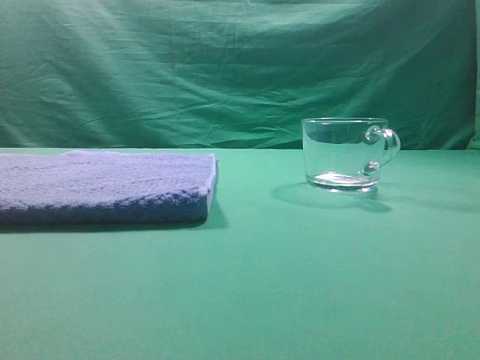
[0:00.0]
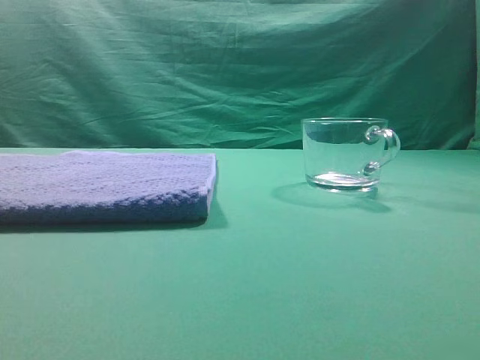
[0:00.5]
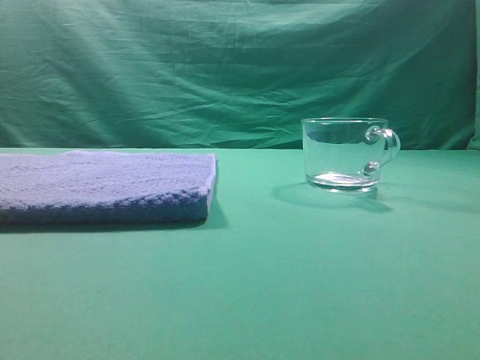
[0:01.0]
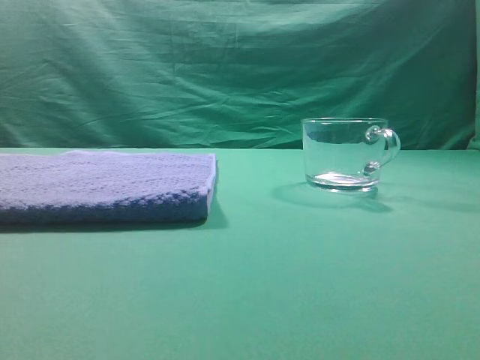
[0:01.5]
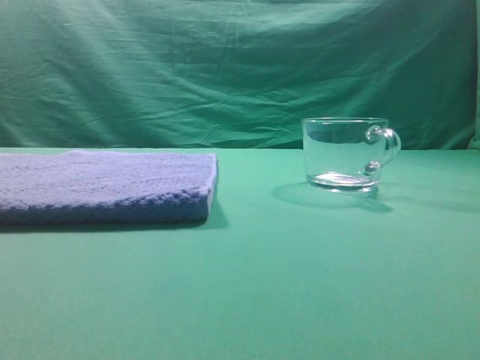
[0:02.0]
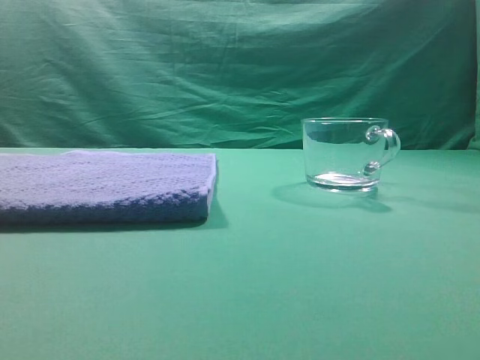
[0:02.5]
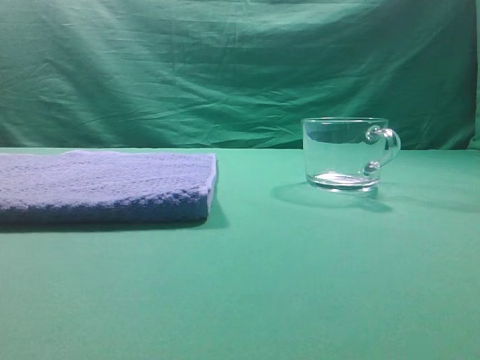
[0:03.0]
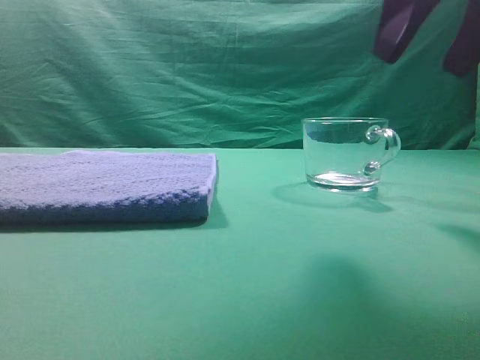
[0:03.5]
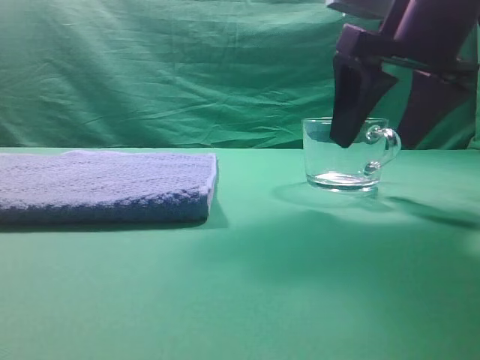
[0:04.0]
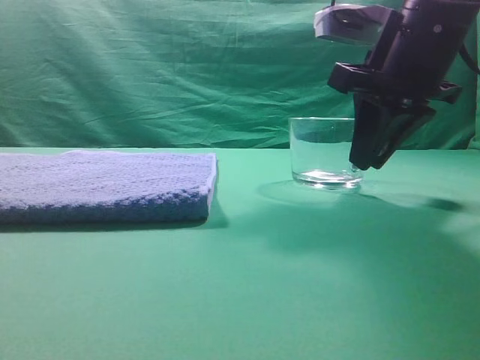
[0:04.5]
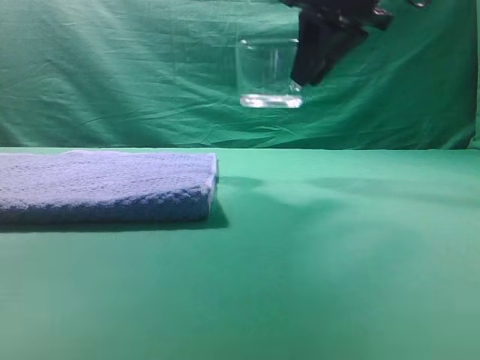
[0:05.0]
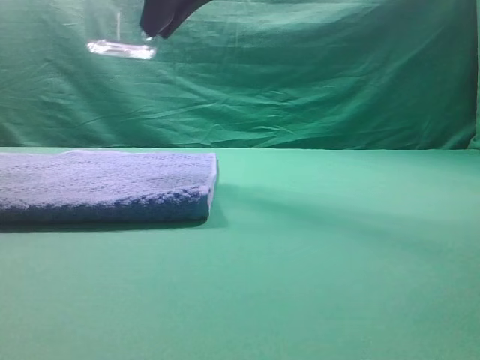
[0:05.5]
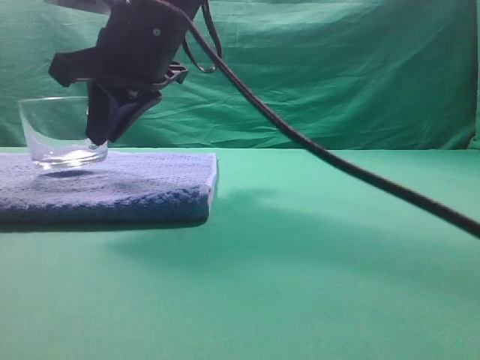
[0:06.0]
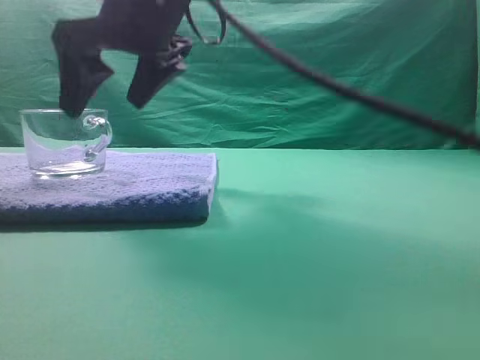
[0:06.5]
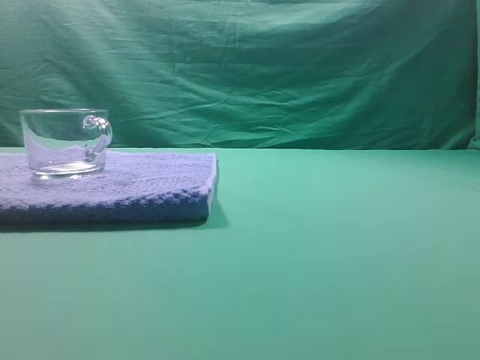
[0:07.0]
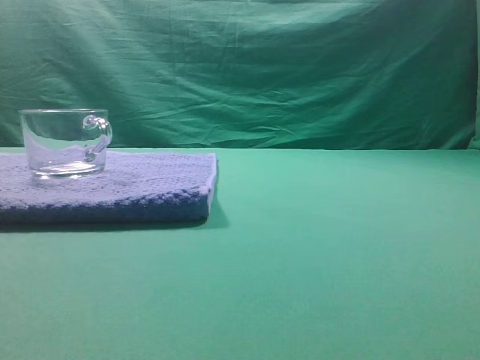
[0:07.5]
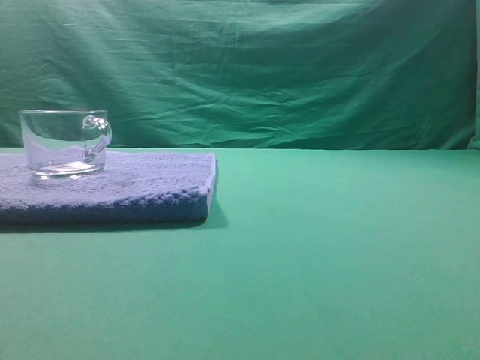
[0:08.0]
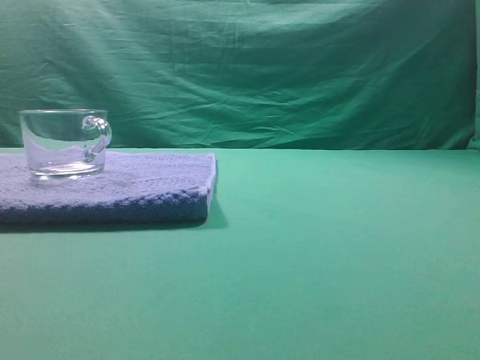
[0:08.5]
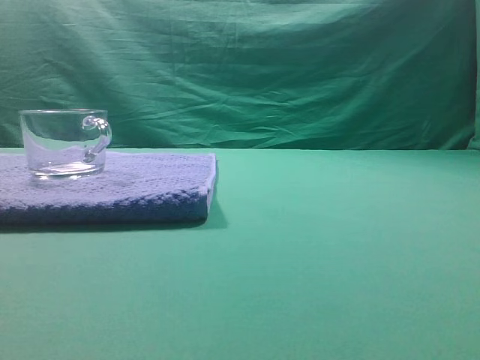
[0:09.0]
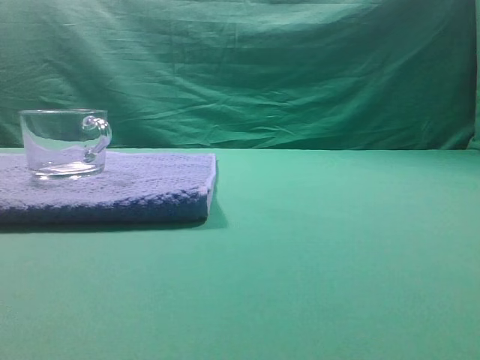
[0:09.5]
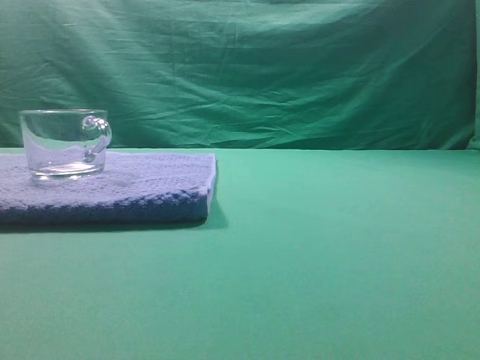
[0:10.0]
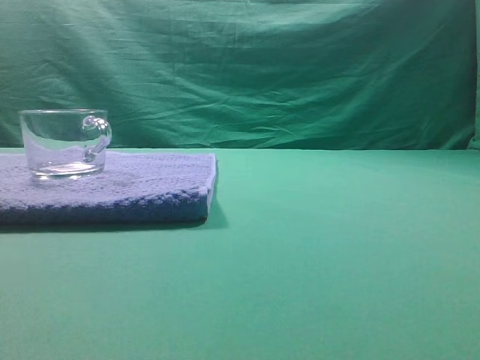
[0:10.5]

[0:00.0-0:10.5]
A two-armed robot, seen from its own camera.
Task of the whole recording: grasp the transparent glass cup and place it within the blue towel.
Step, 0:00.0 to 0:04.5: Grasp the transparent glass cup.
Step, 0:05.0 to 0:06.5: Place the glass cup on the blue zone.

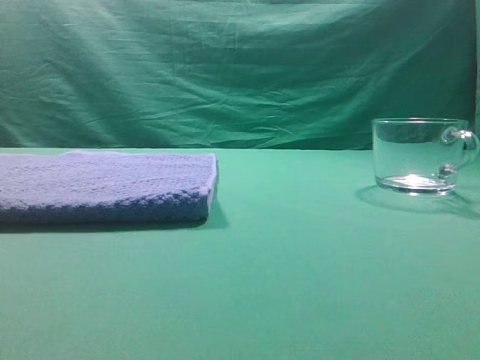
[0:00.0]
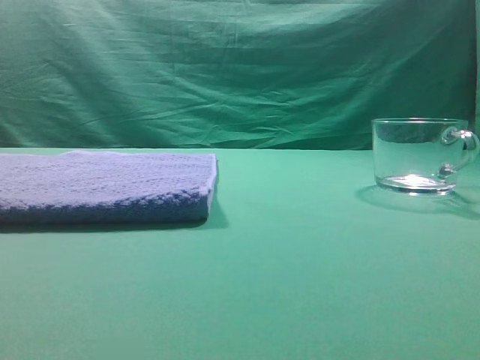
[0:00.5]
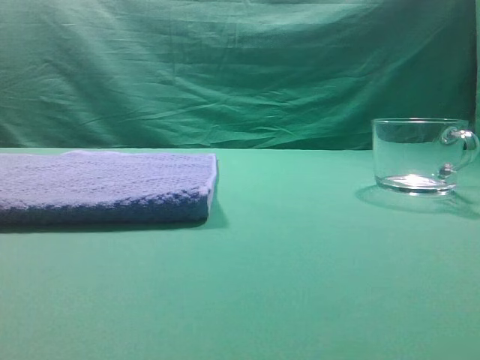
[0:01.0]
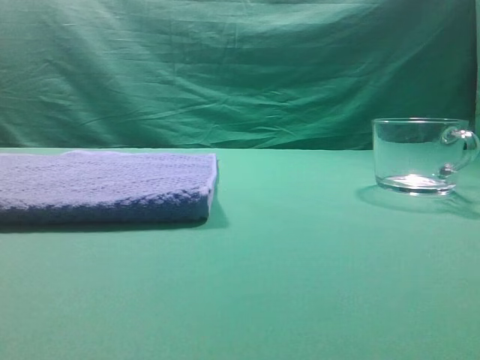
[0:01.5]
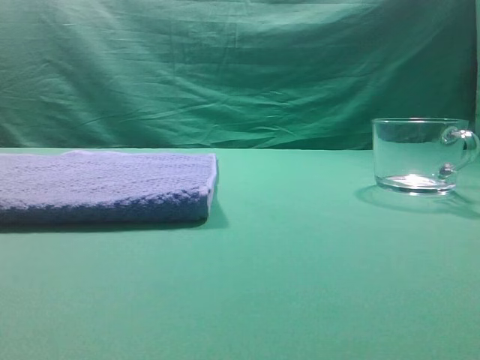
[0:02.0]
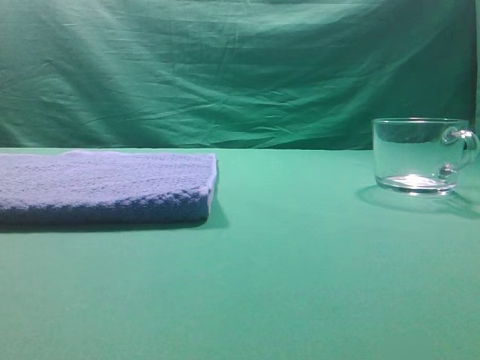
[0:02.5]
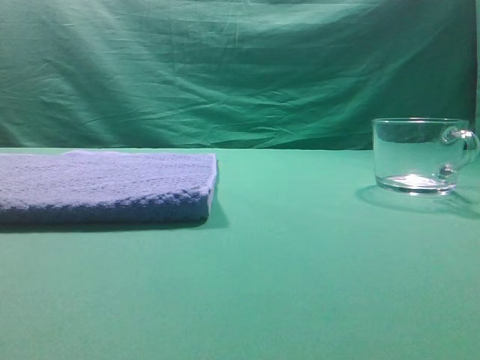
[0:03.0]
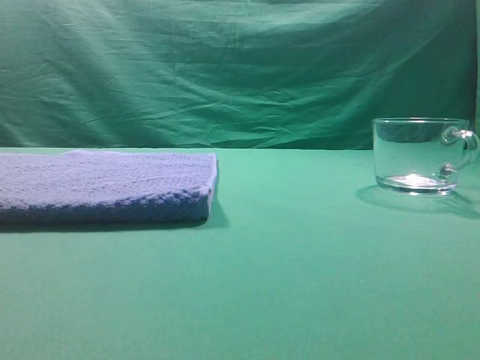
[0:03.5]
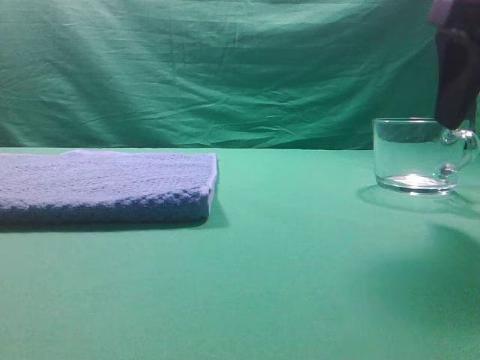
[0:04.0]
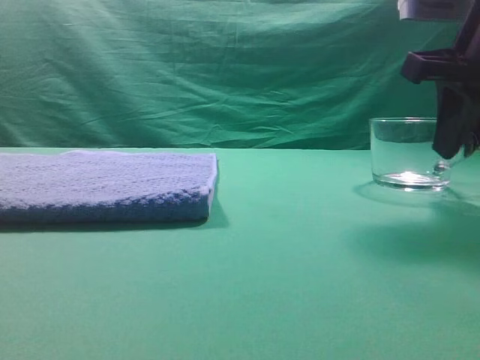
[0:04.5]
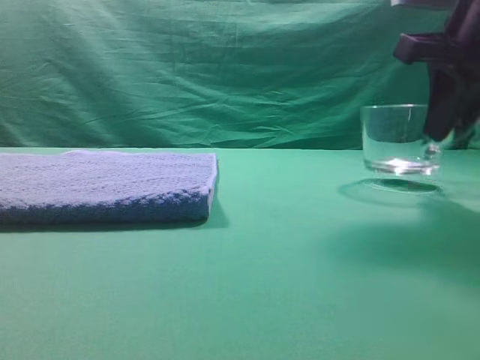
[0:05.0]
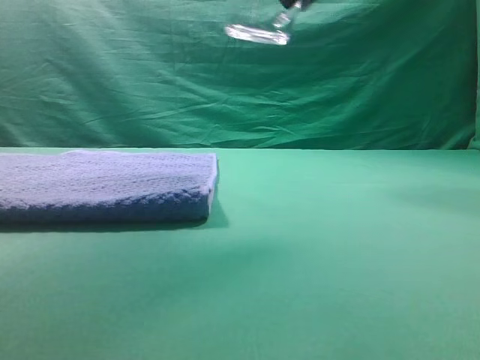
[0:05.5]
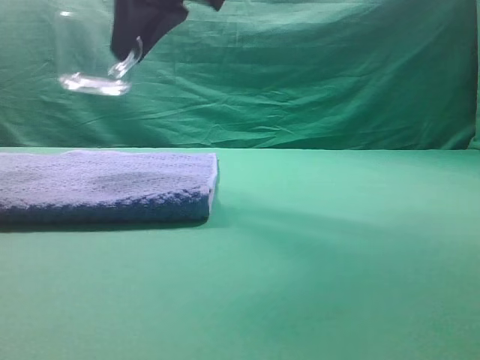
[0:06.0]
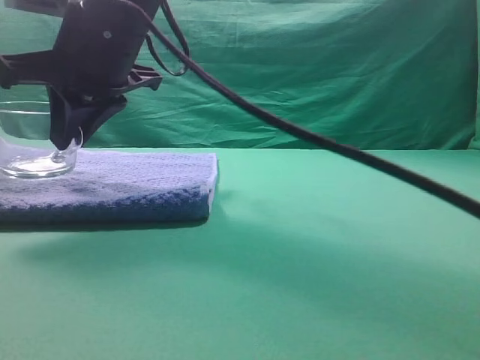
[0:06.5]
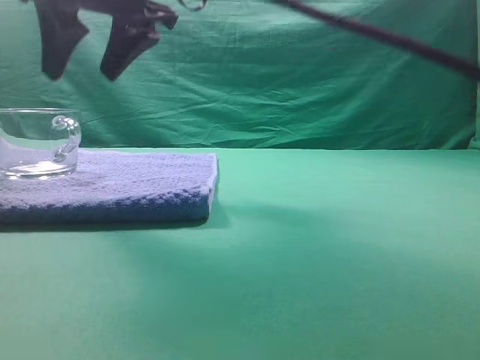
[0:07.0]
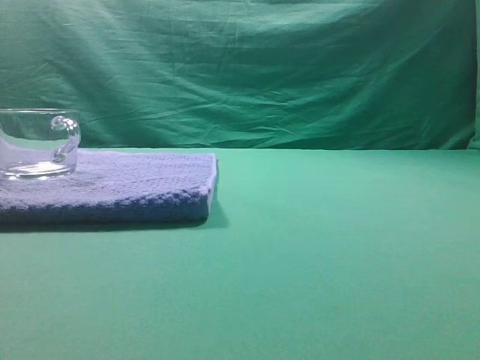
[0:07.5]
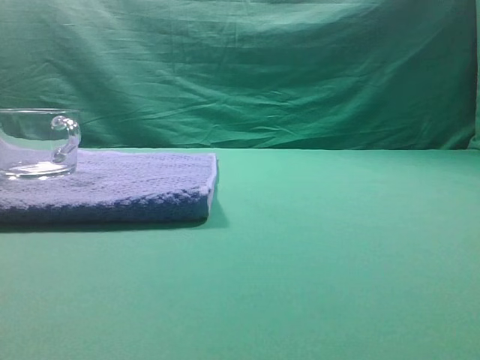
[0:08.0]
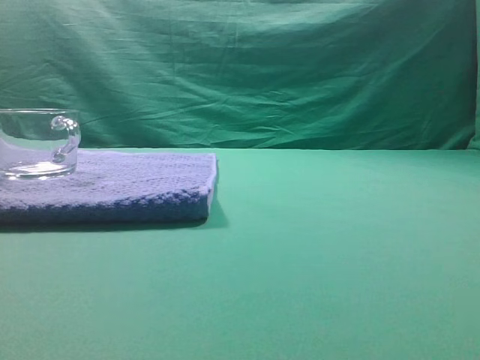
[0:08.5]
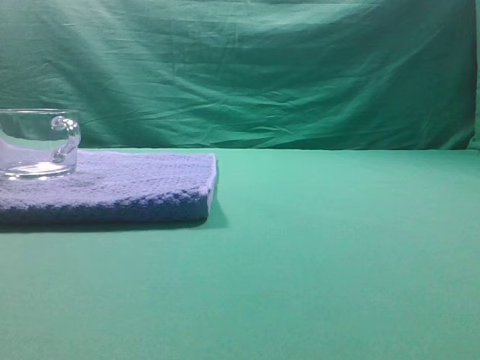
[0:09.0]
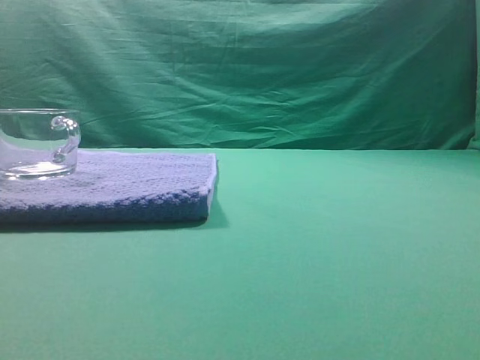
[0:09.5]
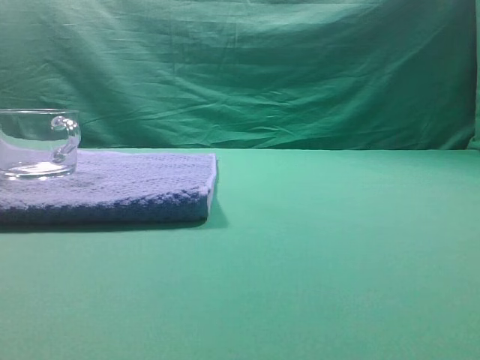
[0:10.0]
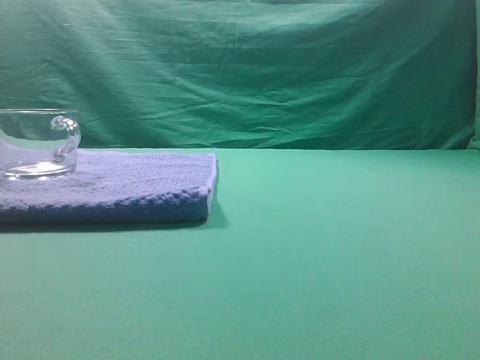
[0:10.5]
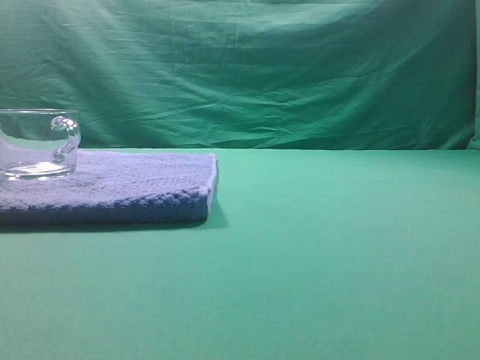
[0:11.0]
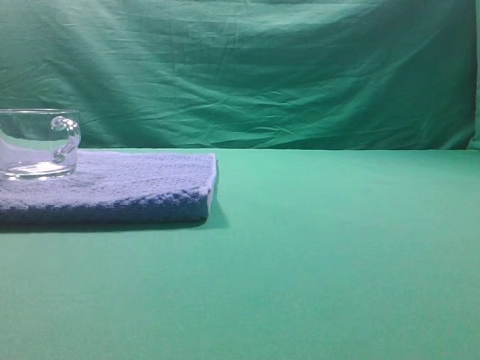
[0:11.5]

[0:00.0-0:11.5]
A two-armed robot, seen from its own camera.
Task of the whole recording: grasp the transparent glass cup and place it within the blue towel.
Step, 0:00.0 to 0:05.0: Grasp the transparent glass cup.
Step, 0:05.5 to 0:07.0: Place the glass cup on the blue zone.
